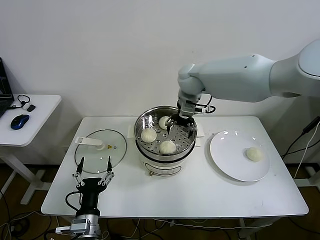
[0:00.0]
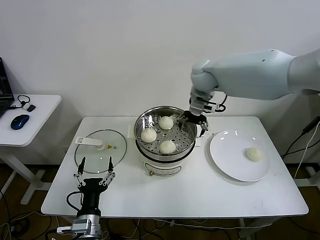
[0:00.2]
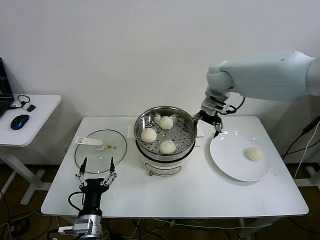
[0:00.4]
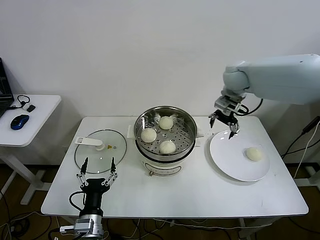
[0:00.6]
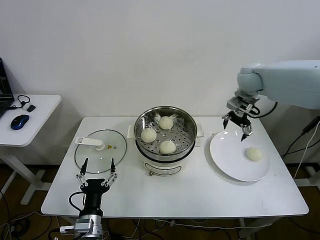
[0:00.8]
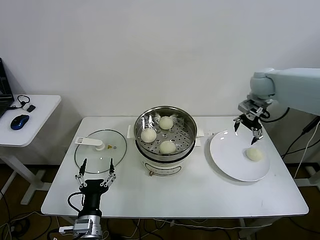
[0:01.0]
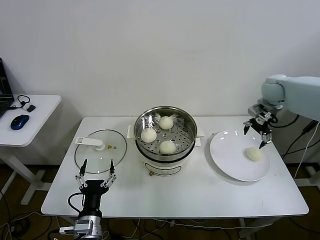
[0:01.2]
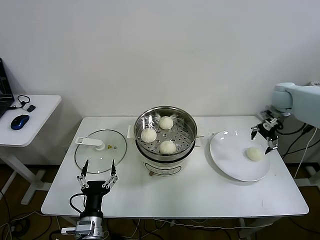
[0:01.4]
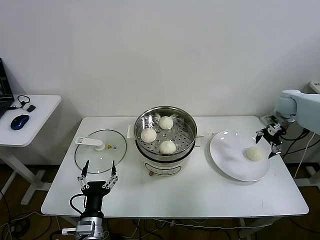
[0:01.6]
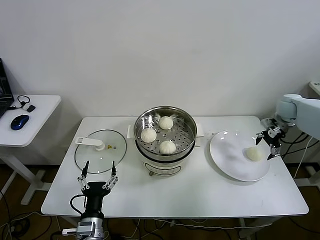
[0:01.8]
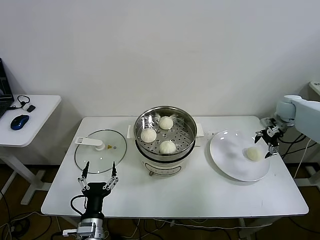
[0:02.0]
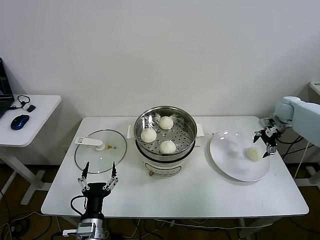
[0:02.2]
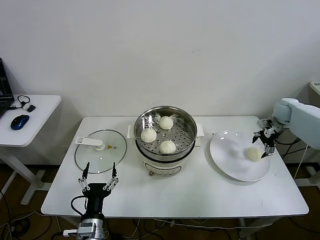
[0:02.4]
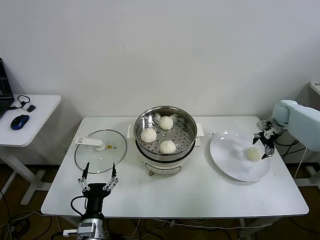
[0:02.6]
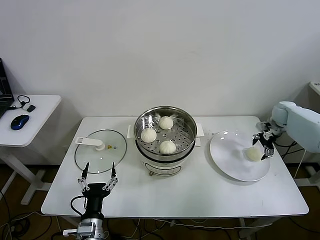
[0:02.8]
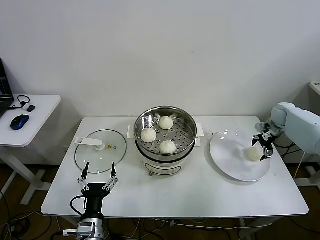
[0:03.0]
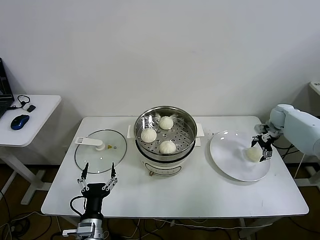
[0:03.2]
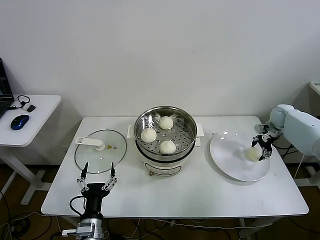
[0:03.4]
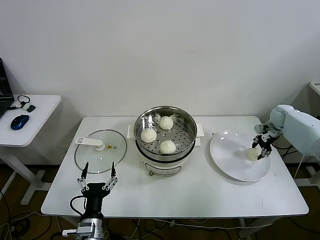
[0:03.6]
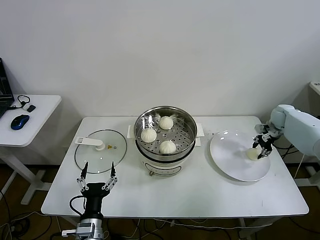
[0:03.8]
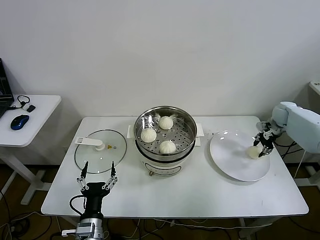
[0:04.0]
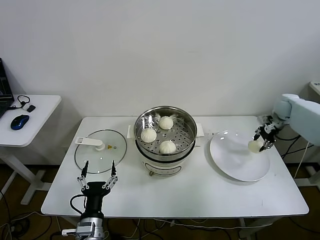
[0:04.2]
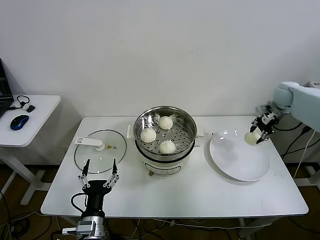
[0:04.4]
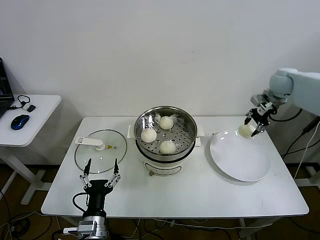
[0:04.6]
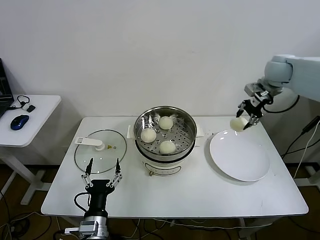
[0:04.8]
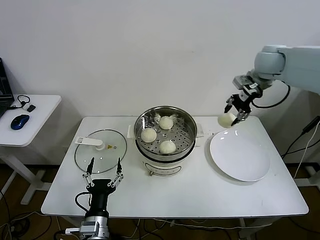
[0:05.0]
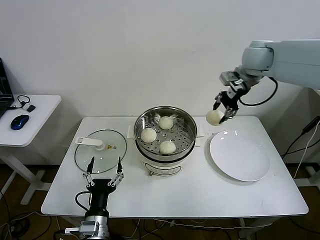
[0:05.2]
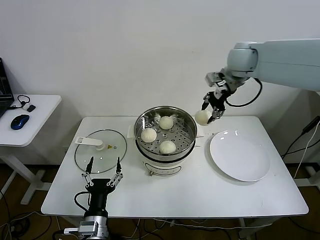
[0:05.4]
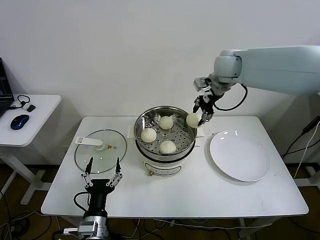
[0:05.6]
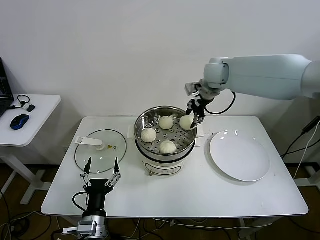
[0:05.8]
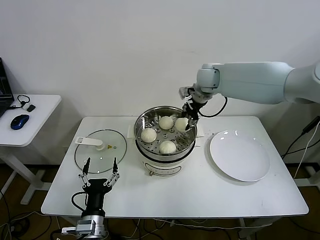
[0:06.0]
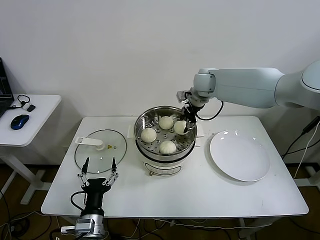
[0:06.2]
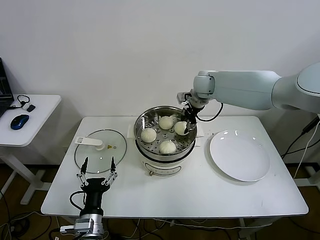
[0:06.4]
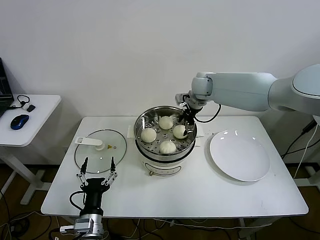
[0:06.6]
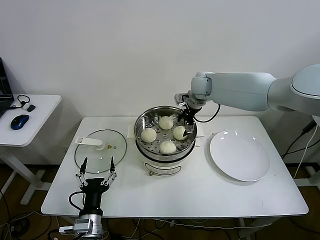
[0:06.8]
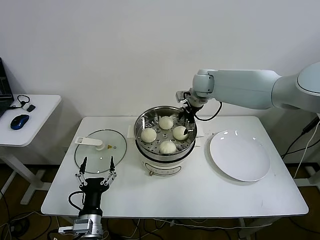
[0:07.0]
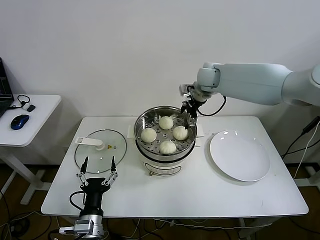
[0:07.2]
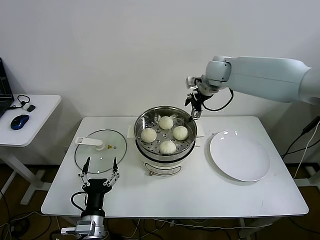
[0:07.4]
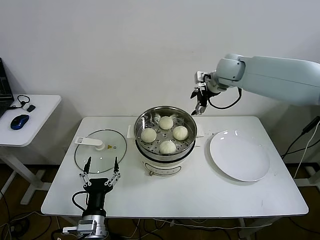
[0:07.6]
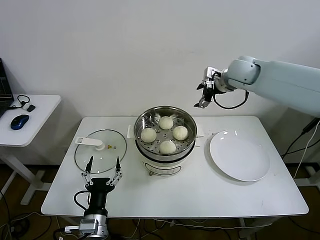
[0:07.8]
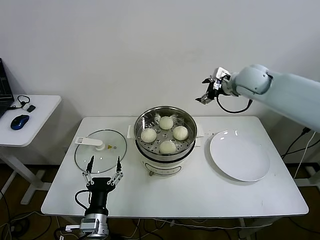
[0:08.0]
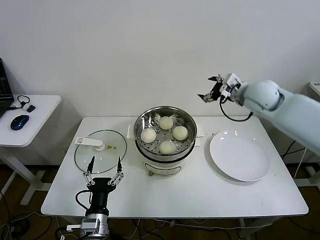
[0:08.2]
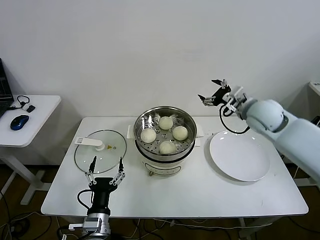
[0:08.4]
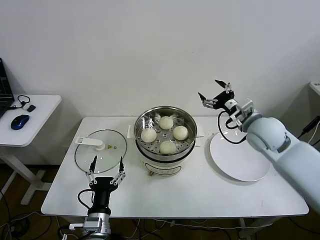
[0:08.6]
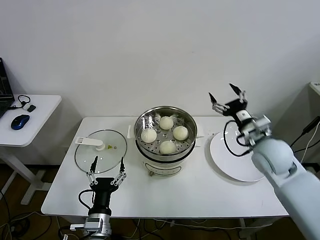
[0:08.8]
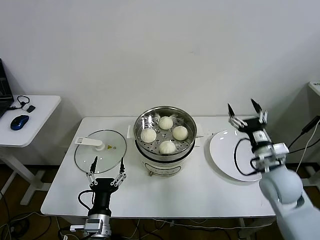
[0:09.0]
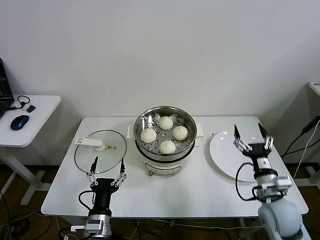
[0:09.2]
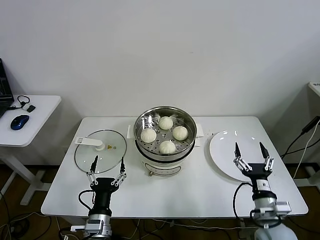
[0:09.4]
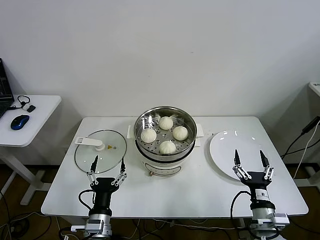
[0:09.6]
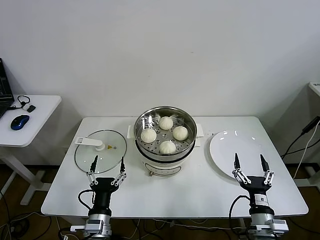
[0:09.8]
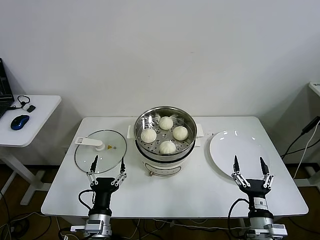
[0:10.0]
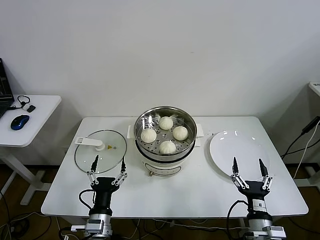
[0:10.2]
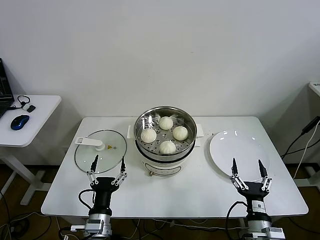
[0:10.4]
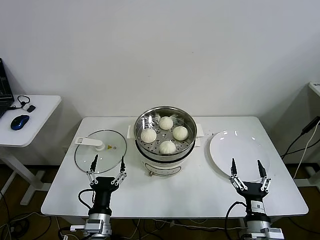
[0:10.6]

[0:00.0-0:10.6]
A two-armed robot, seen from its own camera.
Step, 0:00.0 to 0:03.6: Grasp the baozi in the plate with right gripper.
Step, 0:03.8 to 0:07.2: Place the baozi on the steamer with right gripper.
0:00.0 to 0:01.6: The right gripper is displaced to the right by approximately 35 cm.
0:01.6 to 0:03.0: The right gripper heads downward, covering about 10 cm.
0:03.0 to 0:04.6: The right gripper travels upward and to the left by about 15 cm, and closes.
0:04.6 to 0:06.0: The right gripper moves to the left, approximately 25 cm.
0:06.0 to 0:07.6: The right gripper changes place by some 5 cm, and opens.
0:07.6 to 0:09.0: The right gripper moves backward and downward, about 30 cm.
0:09.0 to 0:10.6: The right gripper goes about 25 cm backward and downward.
